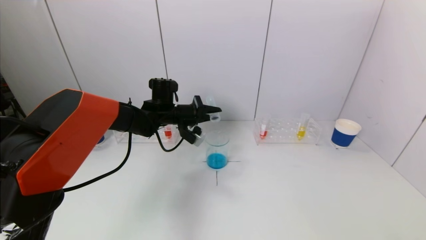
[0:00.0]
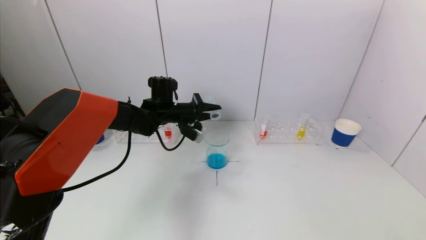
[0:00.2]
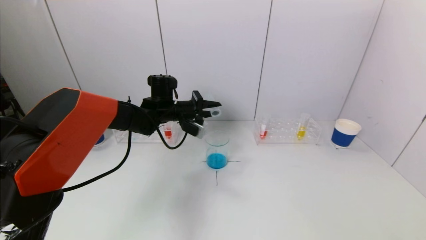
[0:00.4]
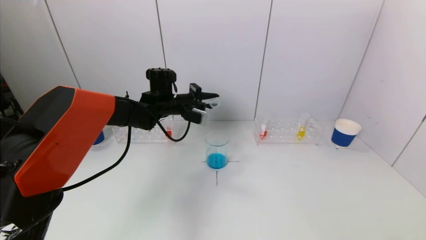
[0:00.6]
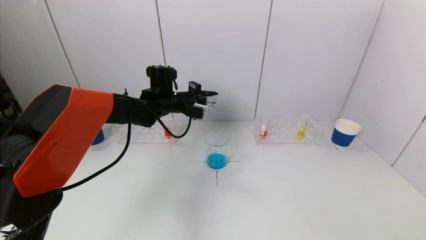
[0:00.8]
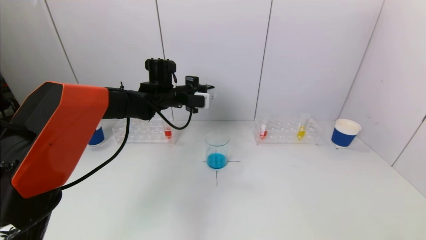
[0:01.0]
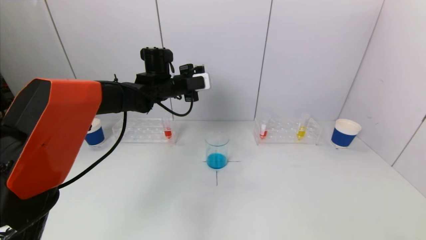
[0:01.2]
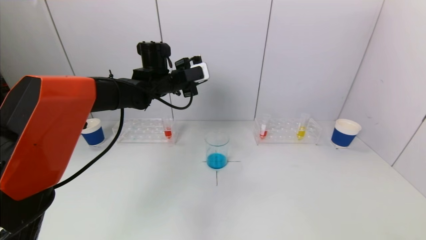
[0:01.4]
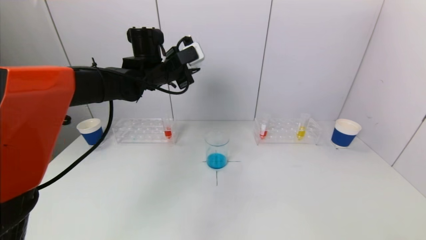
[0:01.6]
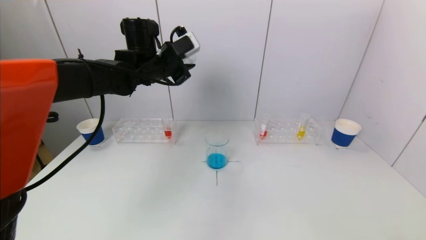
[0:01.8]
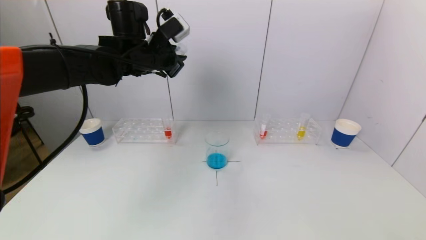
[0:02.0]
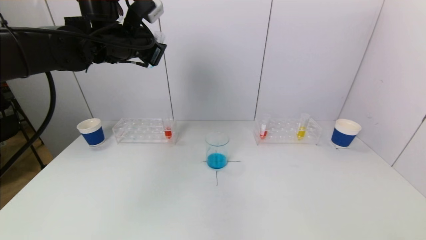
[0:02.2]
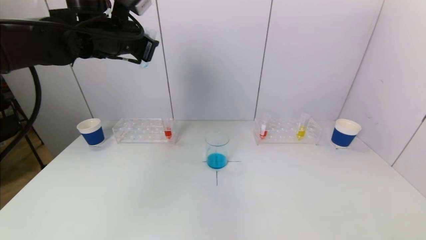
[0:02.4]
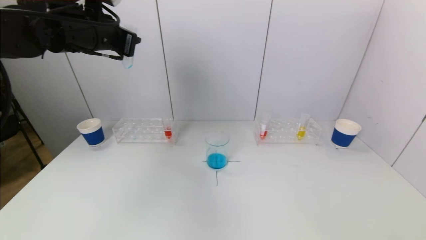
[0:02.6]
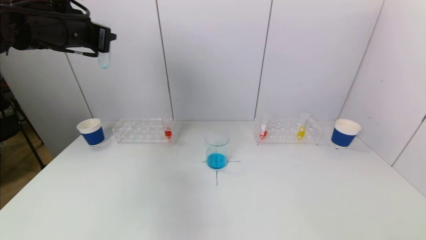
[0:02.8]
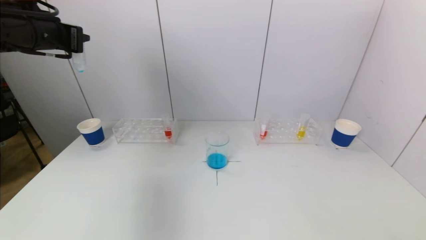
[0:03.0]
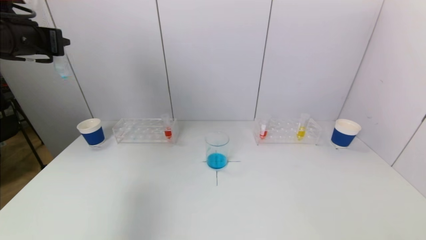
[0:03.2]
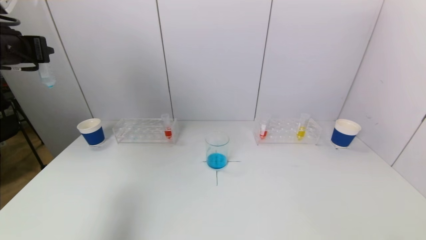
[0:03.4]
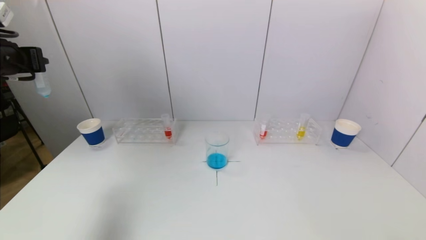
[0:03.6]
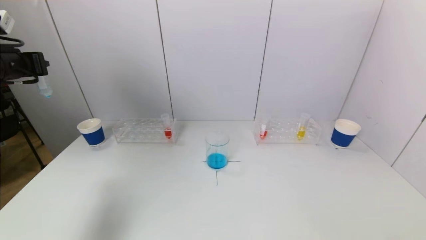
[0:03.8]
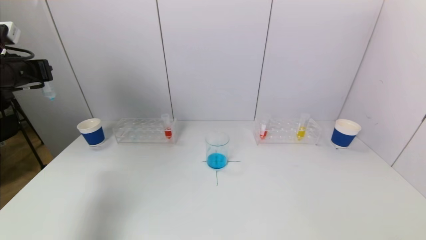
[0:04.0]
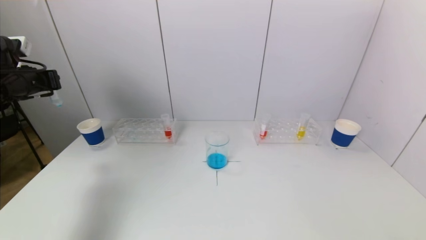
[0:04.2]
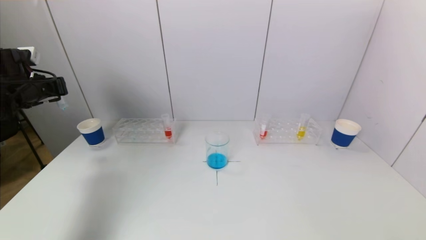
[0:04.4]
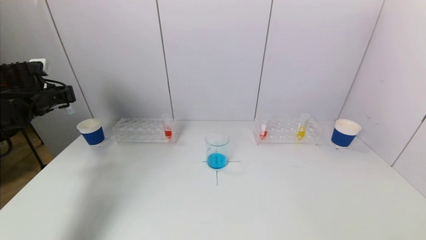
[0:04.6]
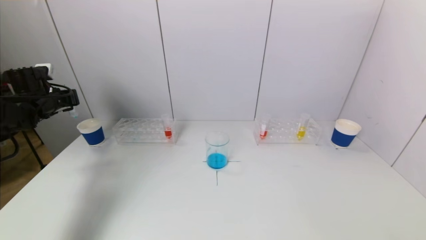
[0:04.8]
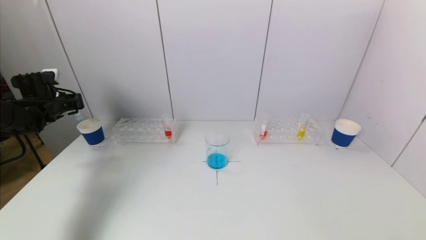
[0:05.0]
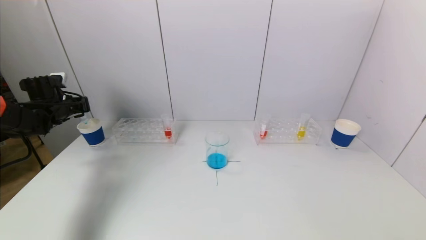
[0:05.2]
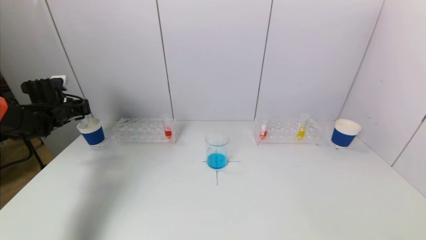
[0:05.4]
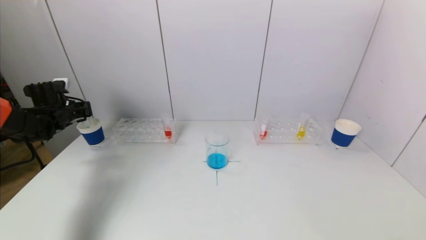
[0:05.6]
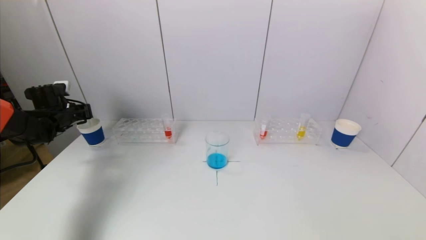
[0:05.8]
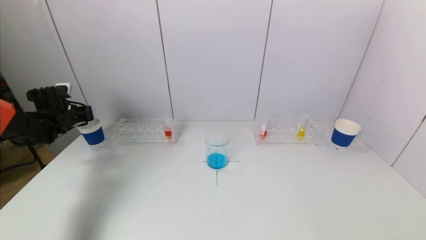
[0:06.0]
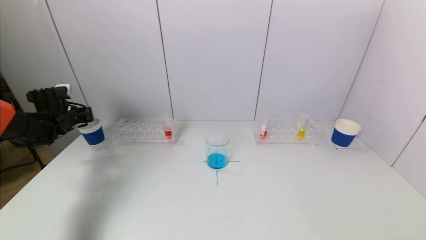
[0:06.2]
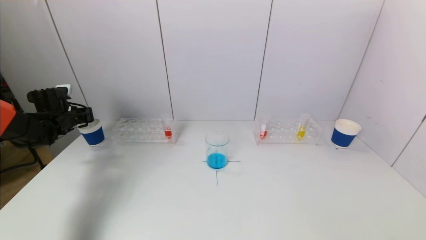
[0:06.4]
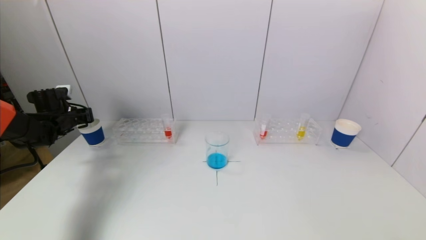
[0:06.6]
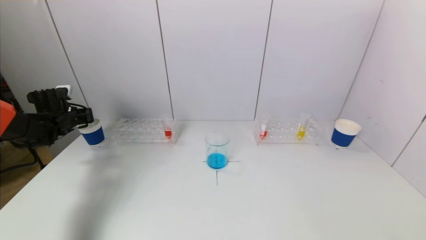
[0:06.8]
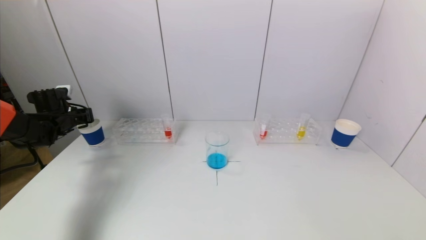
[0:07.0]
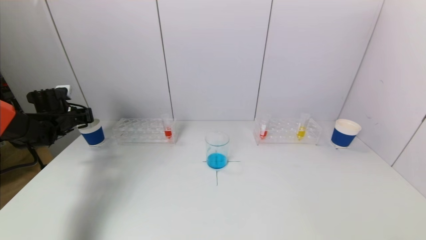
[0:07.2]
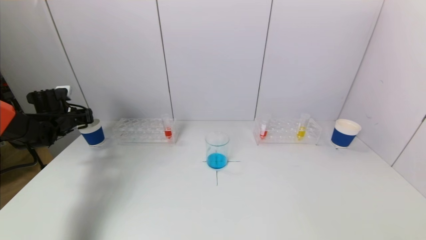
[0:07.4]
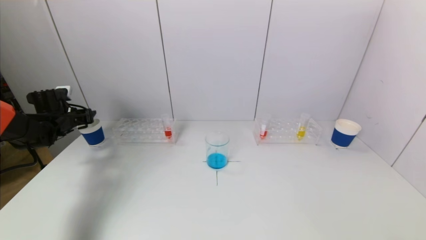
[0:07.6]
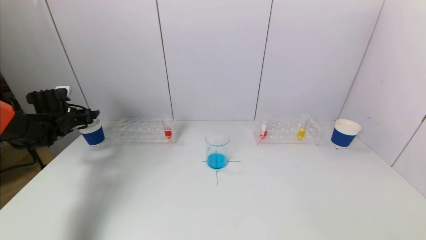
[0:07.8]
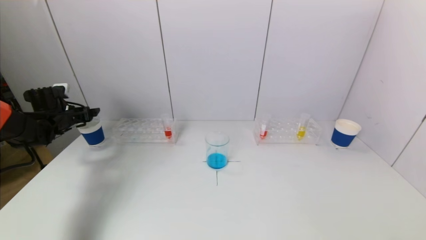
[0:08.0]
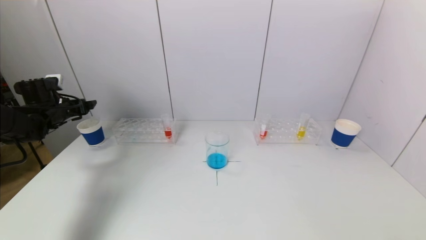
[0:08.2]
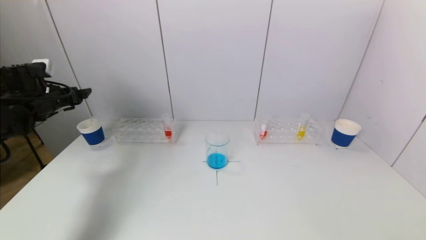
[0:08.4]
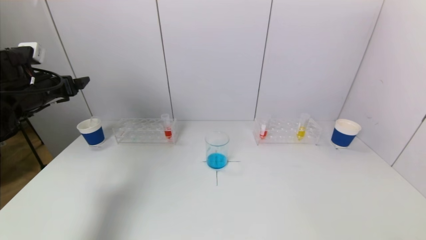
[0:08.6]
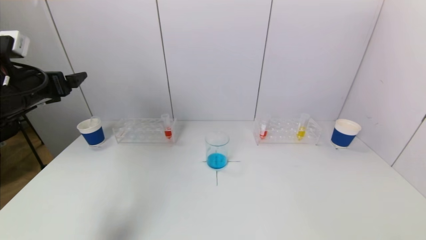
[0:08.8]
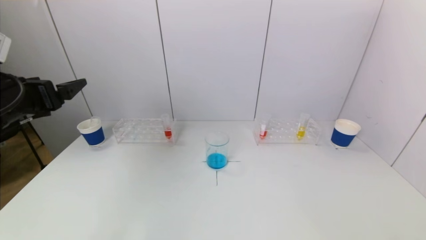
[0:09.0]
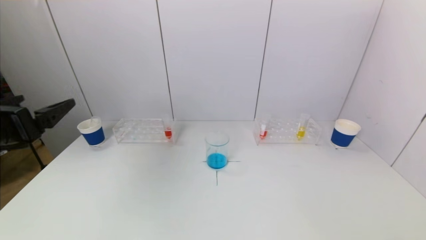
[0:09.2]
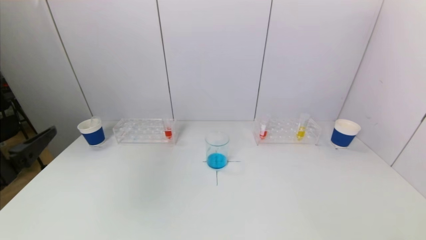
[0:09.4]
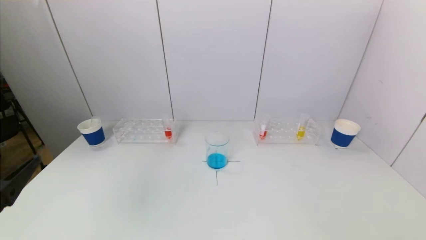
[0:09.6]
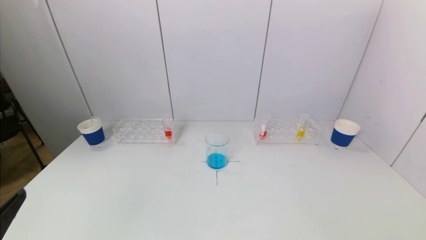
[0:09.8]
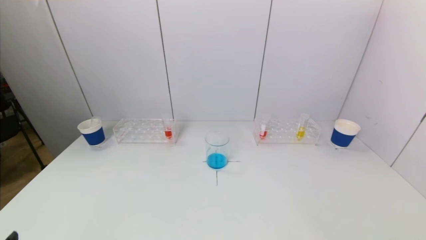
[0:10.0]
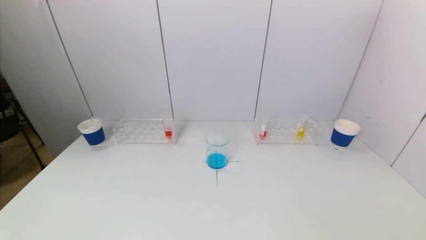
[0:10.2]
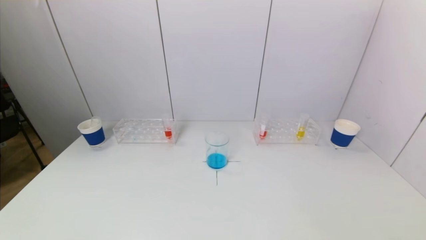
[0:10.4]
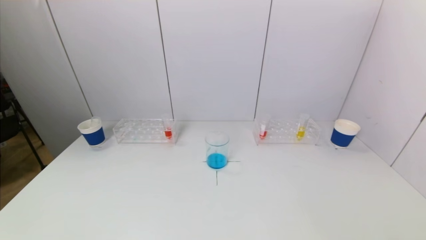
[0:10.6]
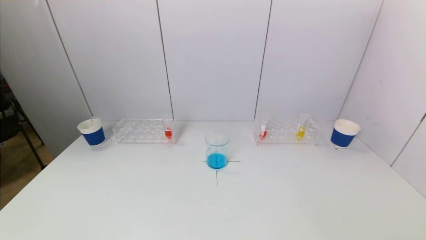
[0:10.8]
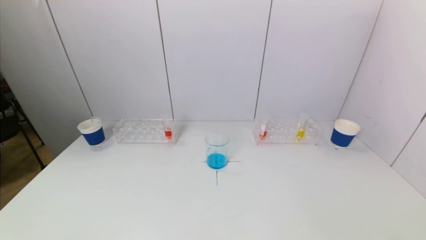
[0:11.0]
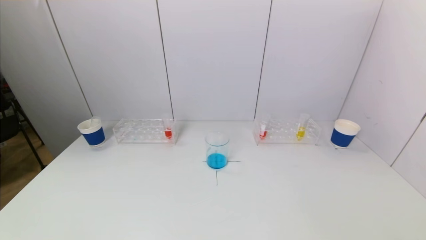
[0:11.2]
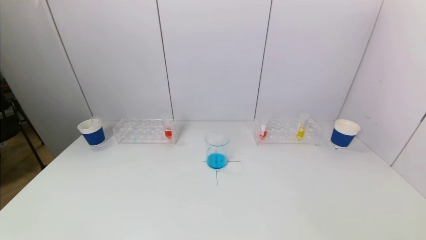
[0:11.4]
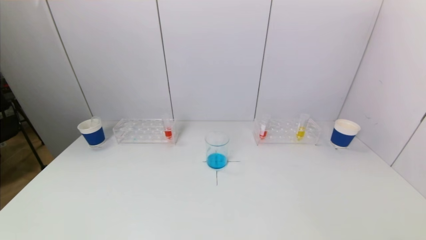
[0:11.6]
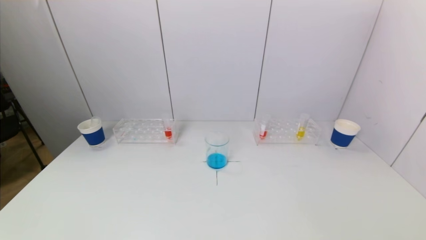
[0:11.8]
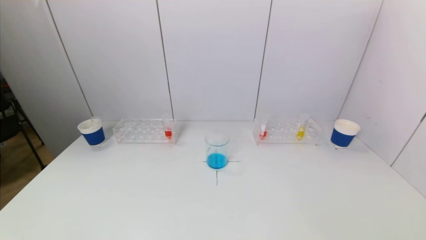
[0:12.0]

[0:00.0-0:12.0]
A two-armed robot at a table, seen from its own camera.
Task of the whole recording: pick up a test tube with pigment on left test tube rack and a test tube with pigment on right test tube rack by grippers and pour them into the beaker.
Step, 0:00.6 to 0:08.0: Place the test tube into the paper cup with the left gripper.
0:00.0 to 0:01.6: The left gripper is displaced upward by approximately 10 cm.
0:01.6 to 0:03.0: The left gripper shifts approximately 25 cm to the left, backward and upward.
0:03.0 to 0:04.4: The left gripper moves downward, to the left and forward, roughly 20 cm.
0:04.4 to 0:06.0: The left gripper goes roughly 10 cm downward.
0:06.0 to 0:07.6: The left gripper opens.
0:07.6 to 0:09.0: The left gripper shifts some 30 cm backward, upward and to the right, and opens.
0:09.0 to 0:10.4: The left gripper moves backward and downward, about 30 cm.

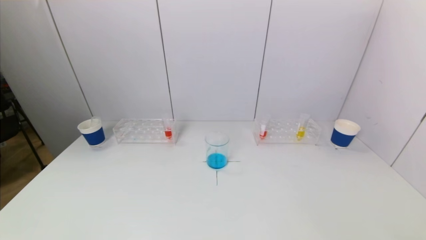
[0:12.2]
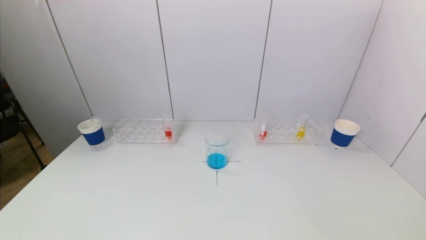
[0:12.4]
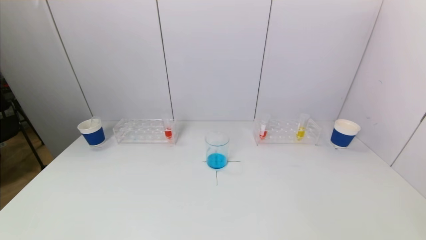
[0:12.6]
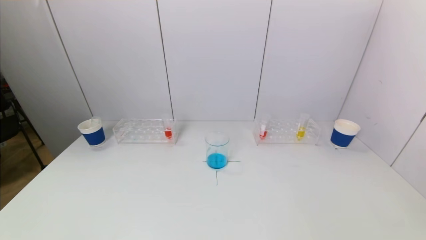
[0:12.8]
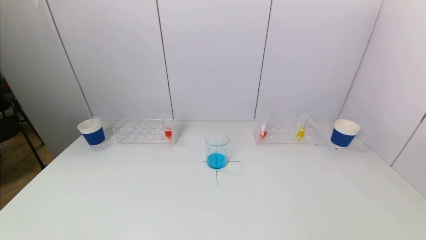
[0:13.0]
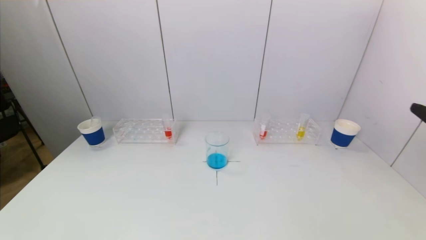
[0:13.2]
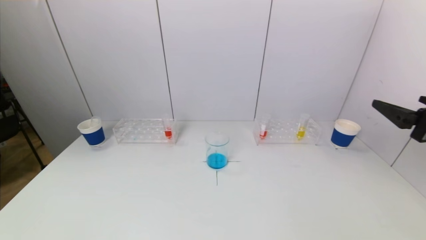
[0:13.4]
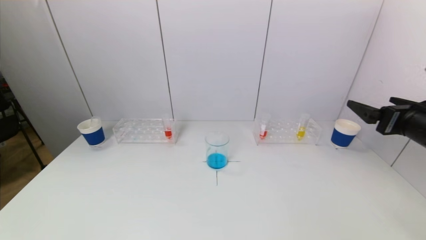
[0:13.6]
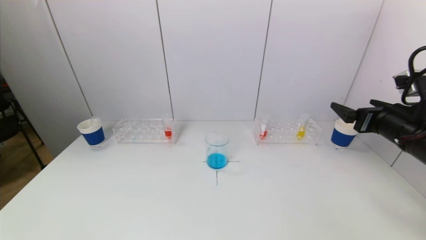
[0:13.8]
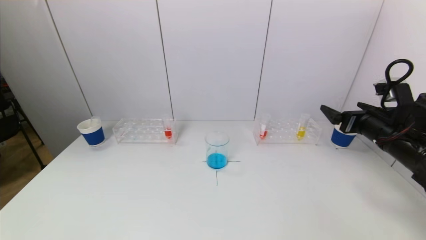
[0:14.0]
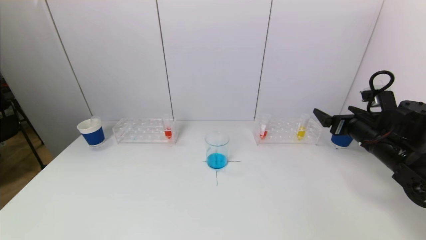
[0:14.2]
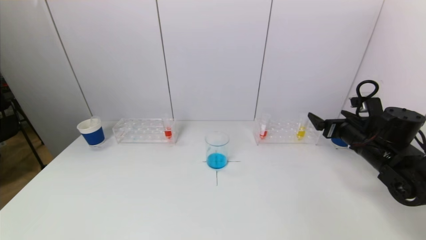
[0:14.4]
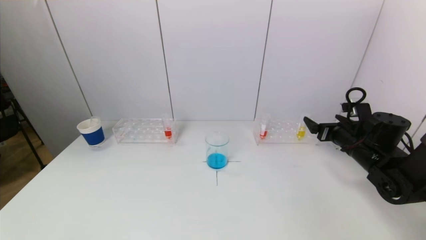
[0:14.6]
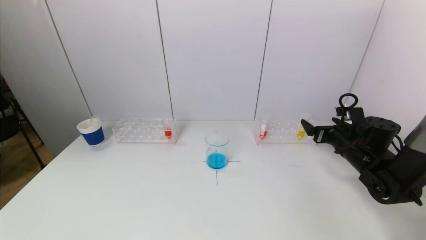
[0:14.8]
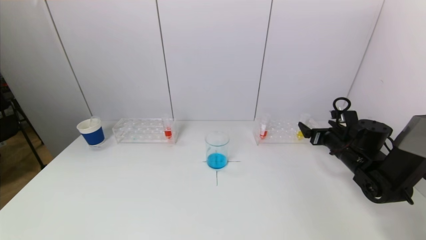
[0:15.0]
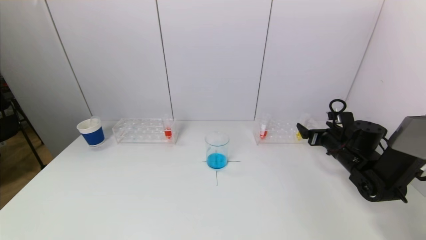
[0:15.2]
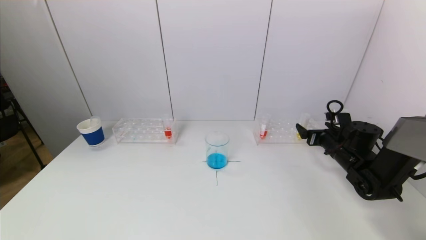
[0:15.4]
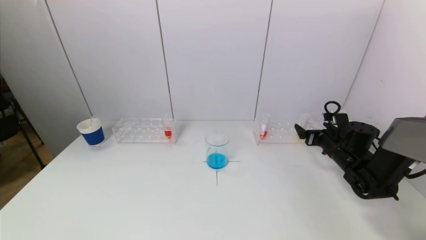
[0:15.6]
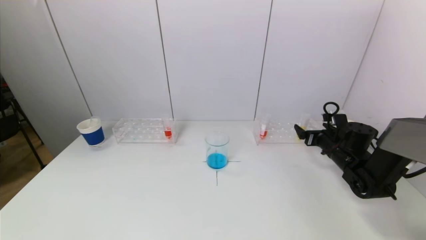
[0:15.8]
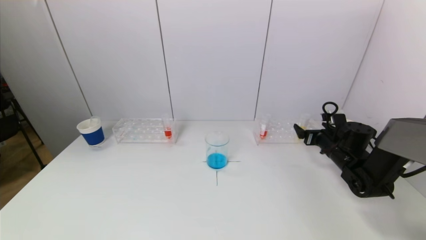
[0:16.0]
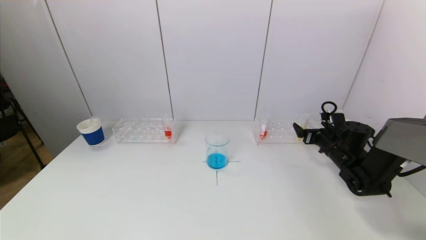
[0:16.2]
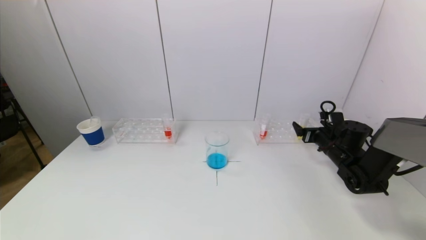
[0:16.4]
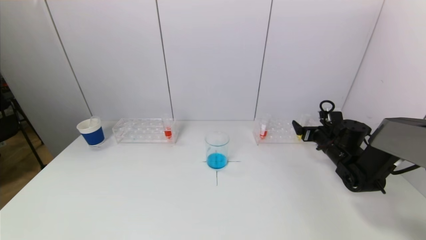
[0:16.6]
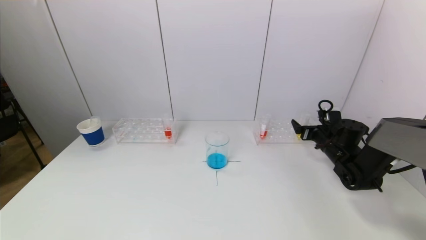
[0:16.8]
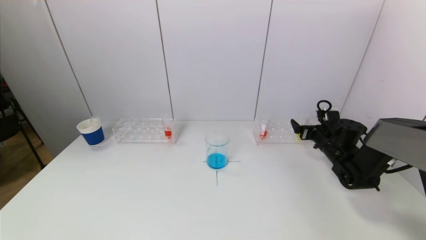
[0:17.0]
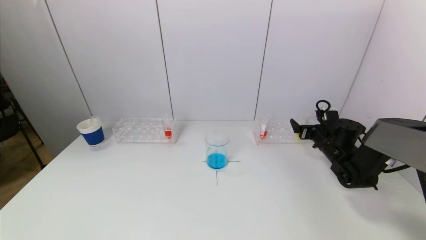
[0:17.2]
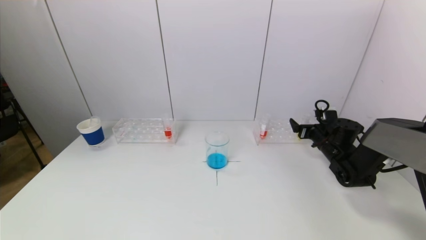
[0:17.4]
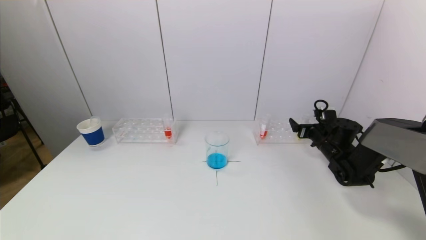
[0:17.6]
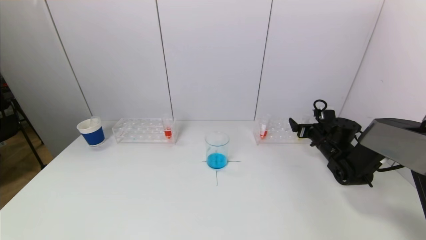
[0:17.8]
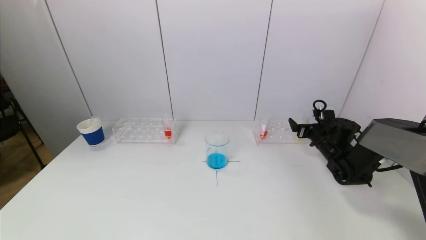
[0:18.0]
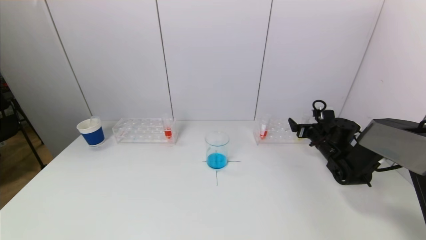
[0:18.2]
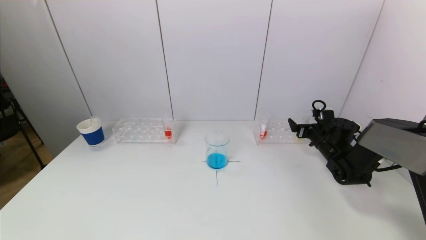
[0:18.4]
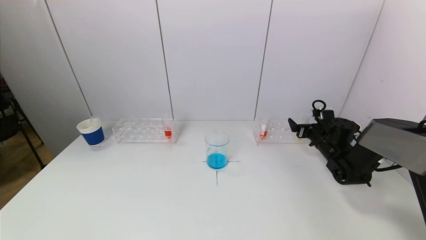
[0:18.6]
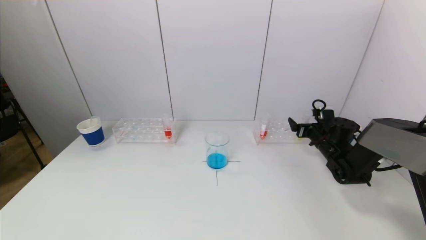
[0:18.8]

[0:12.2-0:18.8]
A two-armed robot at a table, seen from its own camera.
Task of the whole recording: pick up a test tube with pigment on left test tube rack and a test tube with pigment on right test tube rack by grippers and pour them into the beaker.
0:12.2 to 0:13.8: The right gripper goes some 30 cm forward.
0:13.8 to 0:15.4: The right gripper heads downward and forward, covering some 20 cm.
0:15.4 to 0:17.2: The grippers make only small movements.
0:17.2 to 0:18.8: There are only small adjustments of the grippers.
